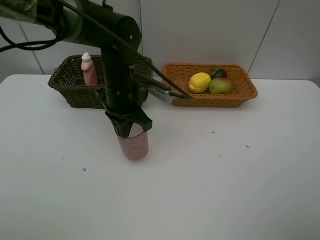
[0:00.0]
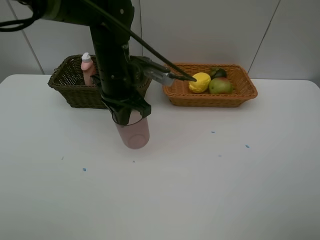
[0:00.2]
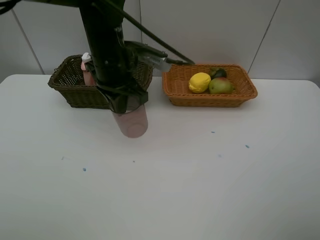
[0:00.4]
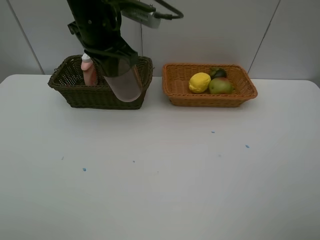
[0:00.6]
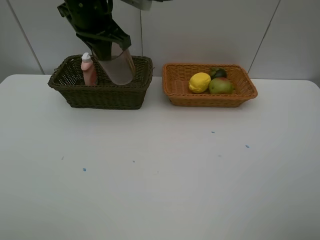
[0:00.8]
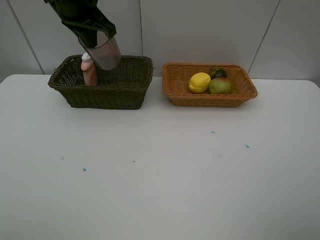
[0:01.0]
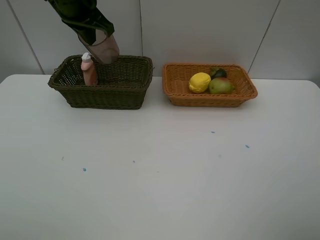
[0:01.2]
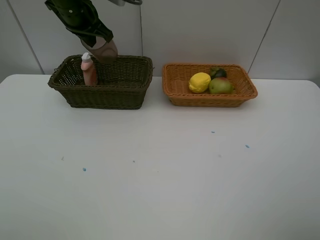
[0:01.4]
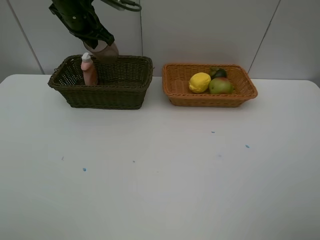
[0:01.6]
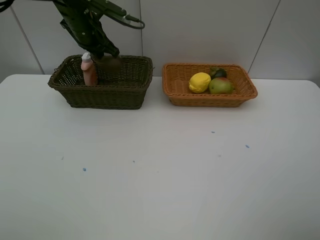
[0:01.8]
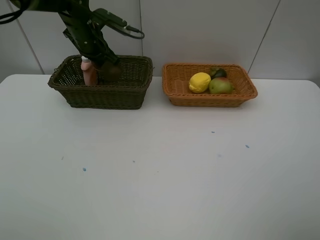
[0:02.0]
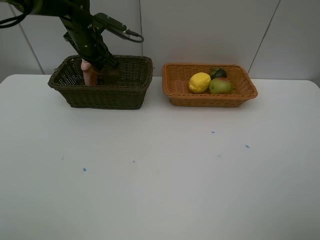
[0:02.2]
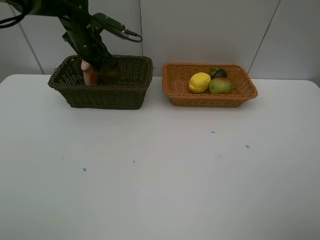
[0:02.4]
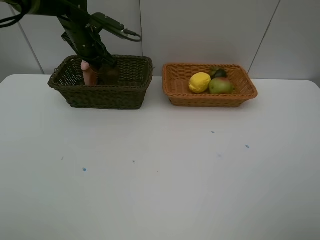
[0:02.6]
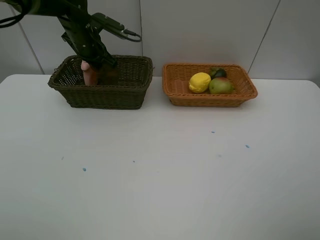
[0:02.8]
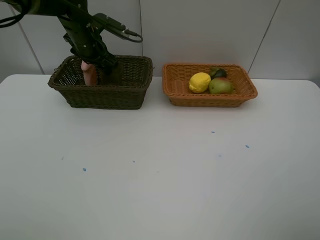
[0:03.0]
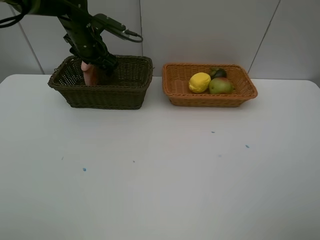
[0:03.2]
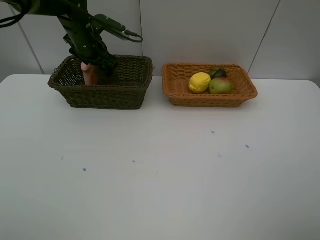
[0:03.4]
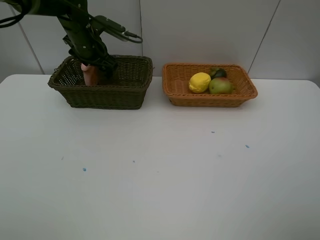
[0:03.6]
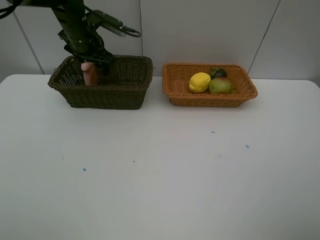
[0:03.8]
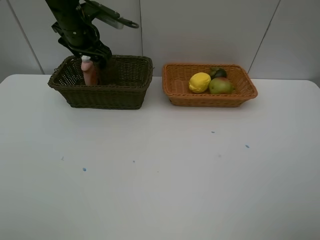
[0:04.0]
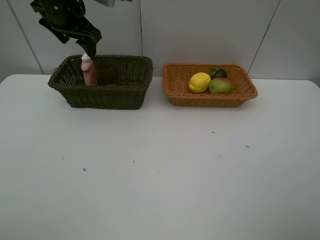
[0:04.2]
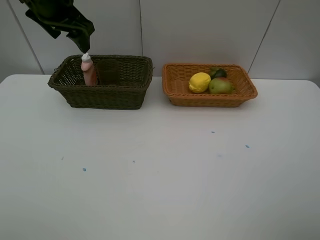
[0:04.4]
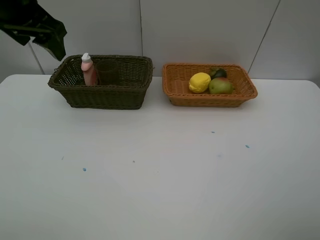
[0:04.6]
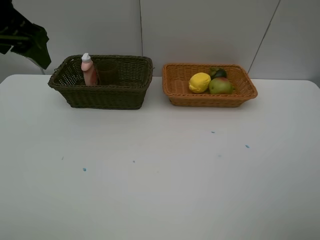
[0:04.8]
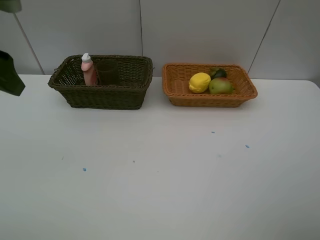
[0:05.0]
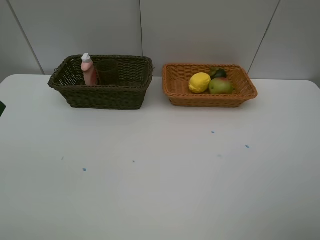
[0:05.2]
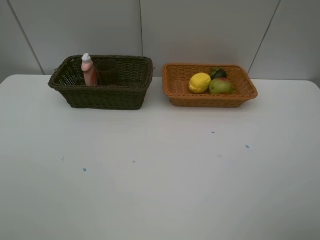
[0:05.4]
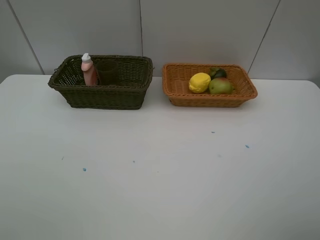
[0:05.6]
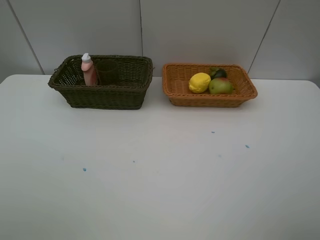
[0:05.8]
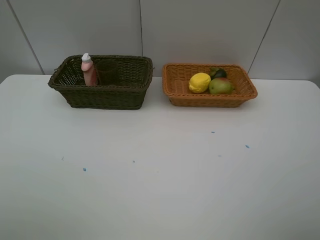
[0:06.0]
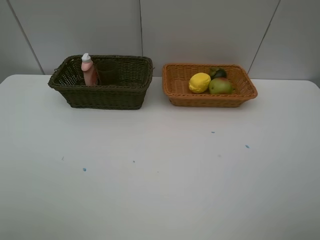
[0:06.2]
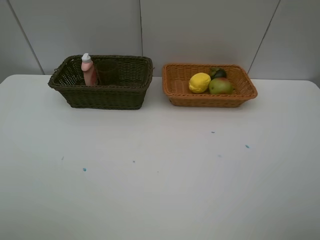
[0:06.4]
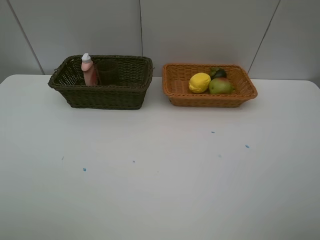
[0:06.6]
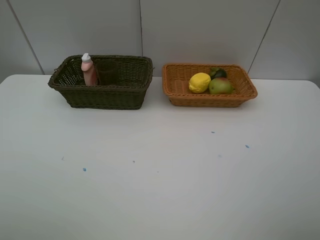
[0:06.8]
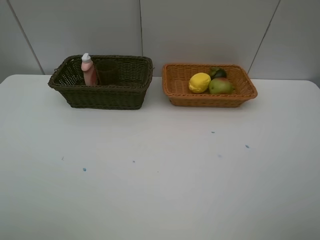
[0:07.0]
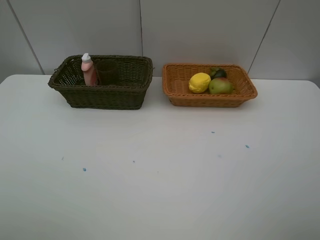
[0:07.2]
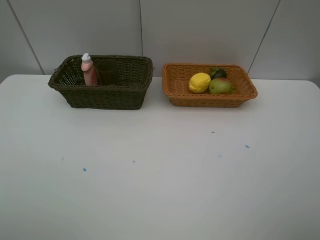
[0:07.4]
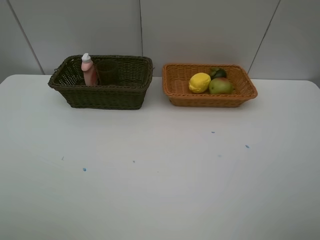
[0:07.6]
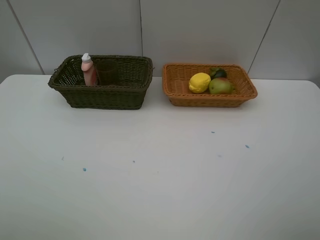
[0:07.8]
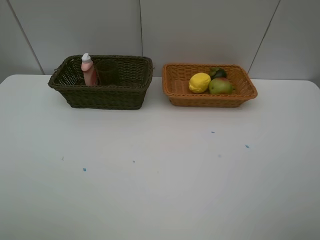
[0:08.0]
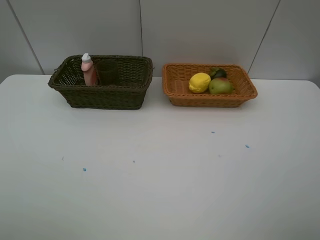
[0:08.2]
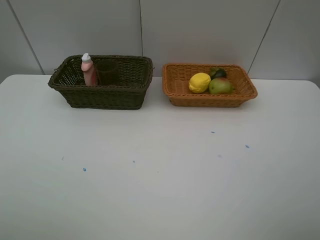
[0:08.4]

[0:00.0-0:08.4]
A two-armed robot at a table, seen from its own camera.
Task of the whole recording: Place multiple objects separately in different baskets.
0:00.0 to 0:01.4: The left gripper heads forward, upward and to the left, covering about 20 cm.
0:01.4 to 0:02.8: The left gripper shifts roughly 10 cm downward.
0:02.8 to 0:04.2: The left gripper shifts some 10 cm upward and backward, and opens.
0:04.2 to 0:05.6: The left gripper shifts some 35 cm backward.
0:07.0 to 0:08.4: The two grippers keep their place.

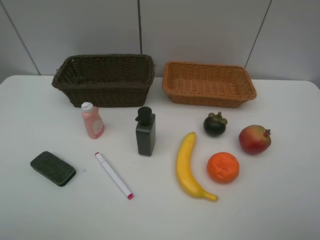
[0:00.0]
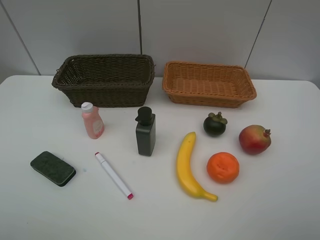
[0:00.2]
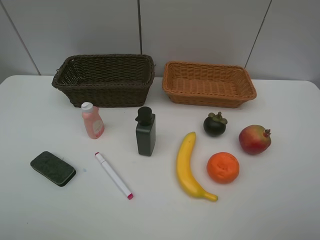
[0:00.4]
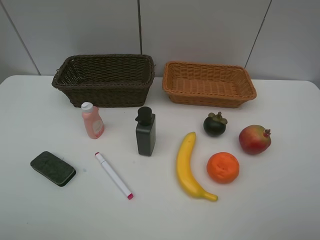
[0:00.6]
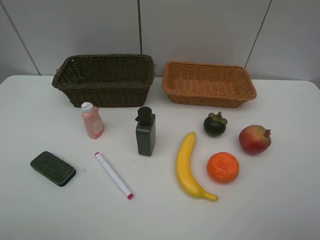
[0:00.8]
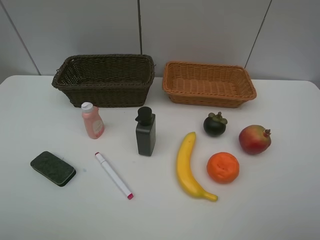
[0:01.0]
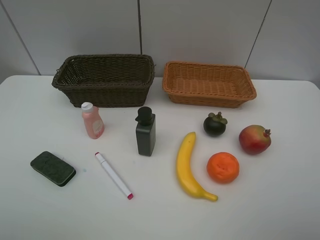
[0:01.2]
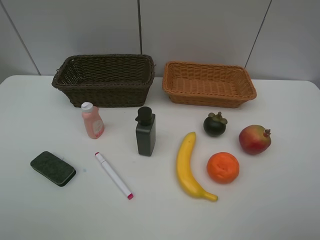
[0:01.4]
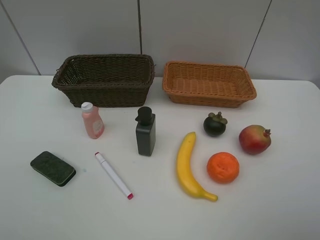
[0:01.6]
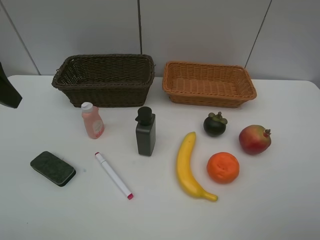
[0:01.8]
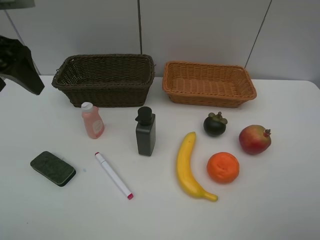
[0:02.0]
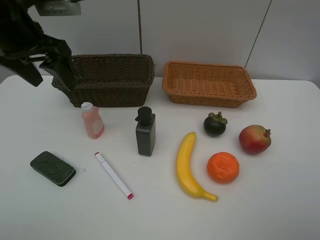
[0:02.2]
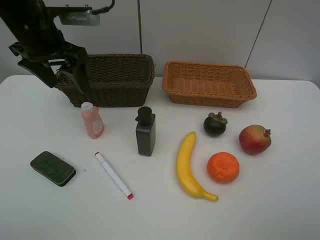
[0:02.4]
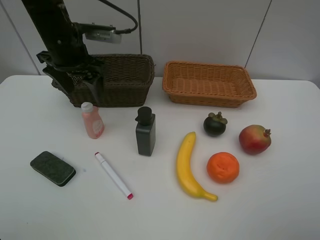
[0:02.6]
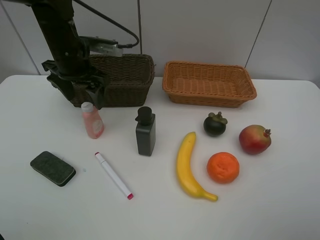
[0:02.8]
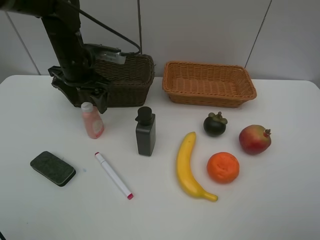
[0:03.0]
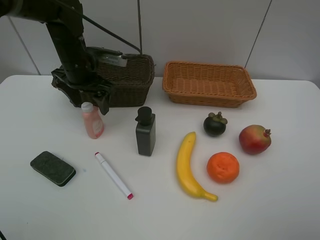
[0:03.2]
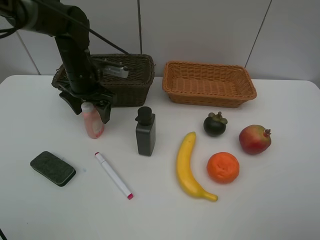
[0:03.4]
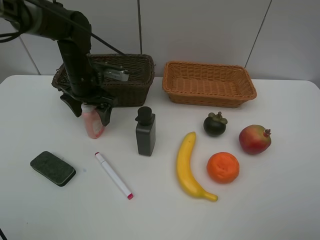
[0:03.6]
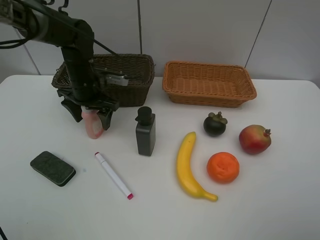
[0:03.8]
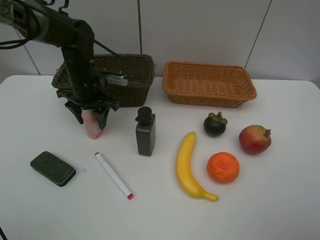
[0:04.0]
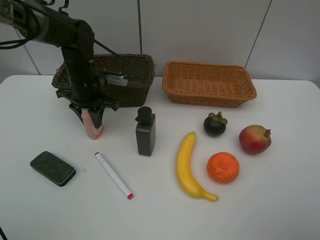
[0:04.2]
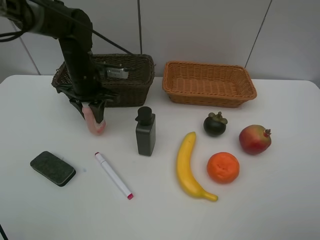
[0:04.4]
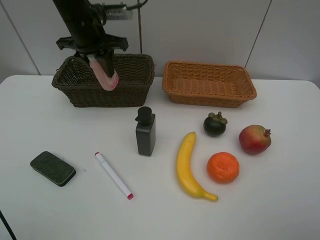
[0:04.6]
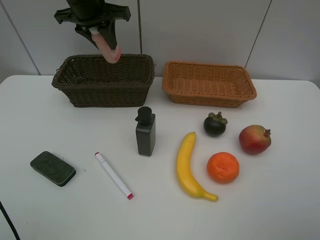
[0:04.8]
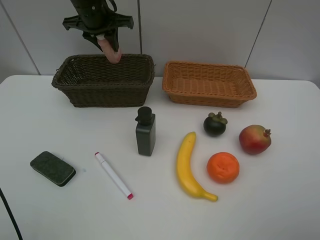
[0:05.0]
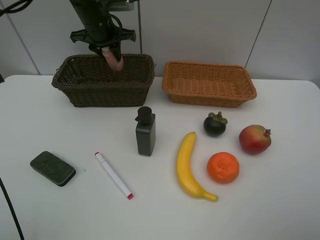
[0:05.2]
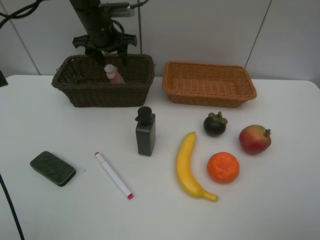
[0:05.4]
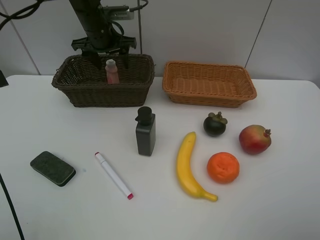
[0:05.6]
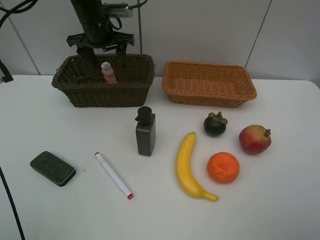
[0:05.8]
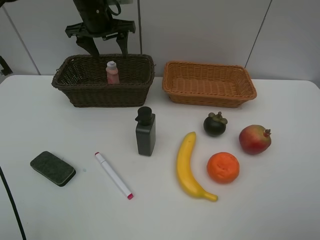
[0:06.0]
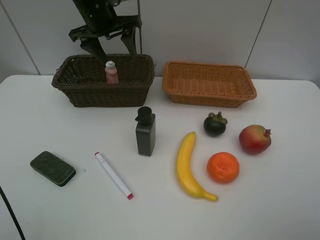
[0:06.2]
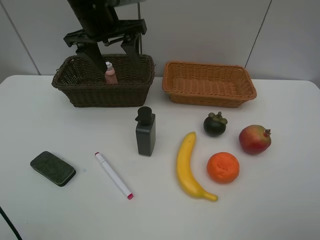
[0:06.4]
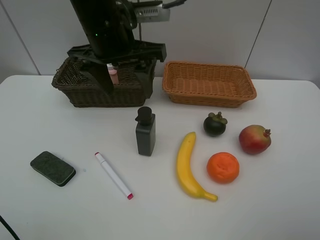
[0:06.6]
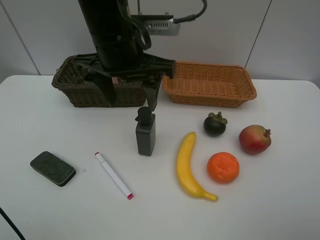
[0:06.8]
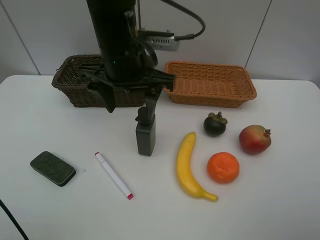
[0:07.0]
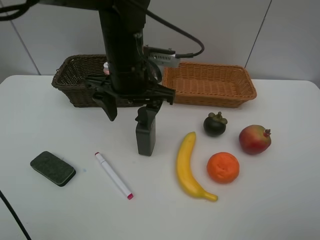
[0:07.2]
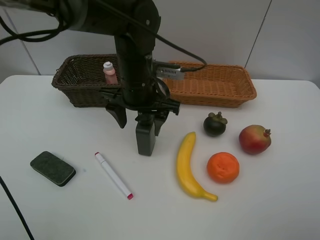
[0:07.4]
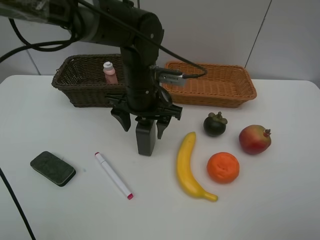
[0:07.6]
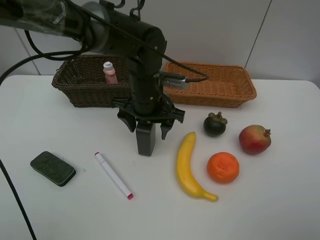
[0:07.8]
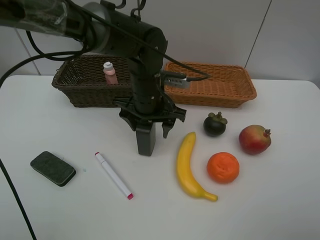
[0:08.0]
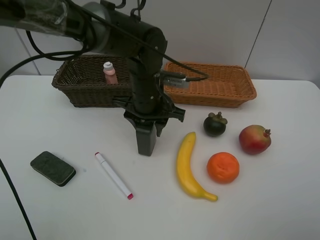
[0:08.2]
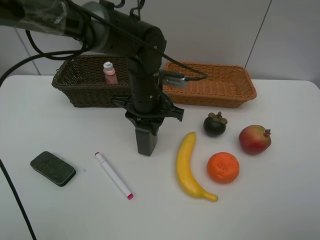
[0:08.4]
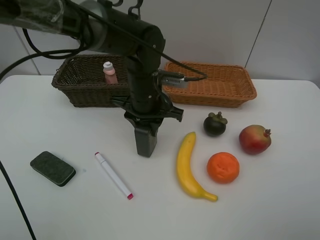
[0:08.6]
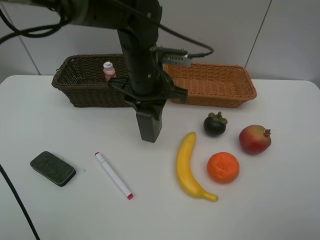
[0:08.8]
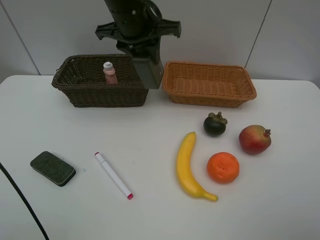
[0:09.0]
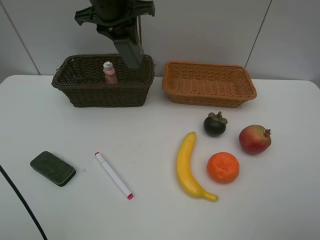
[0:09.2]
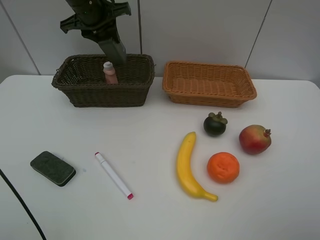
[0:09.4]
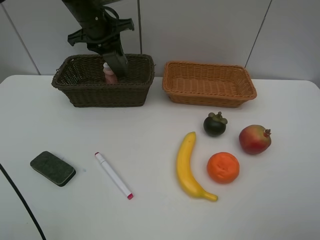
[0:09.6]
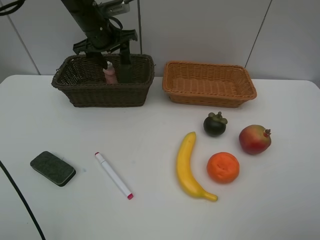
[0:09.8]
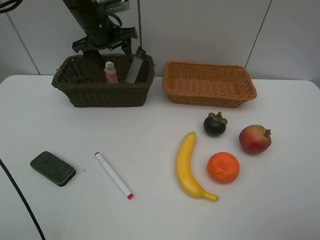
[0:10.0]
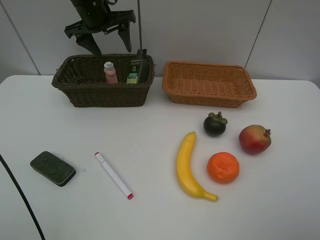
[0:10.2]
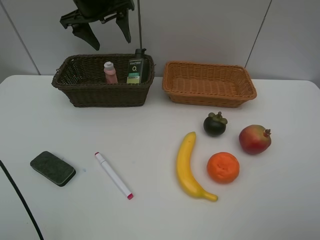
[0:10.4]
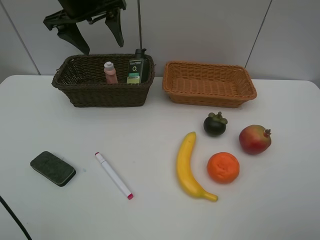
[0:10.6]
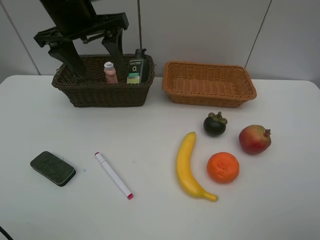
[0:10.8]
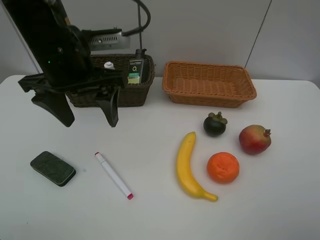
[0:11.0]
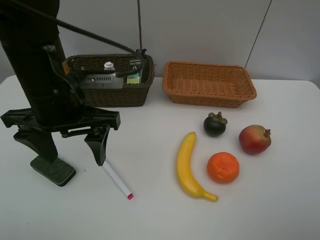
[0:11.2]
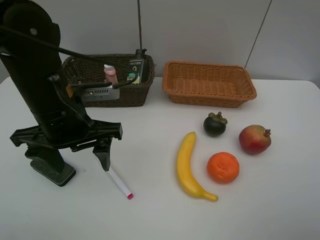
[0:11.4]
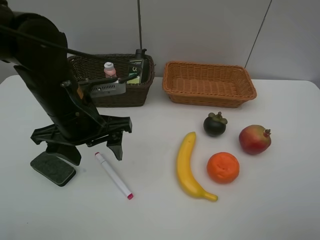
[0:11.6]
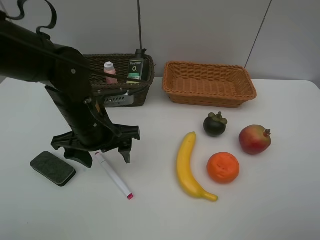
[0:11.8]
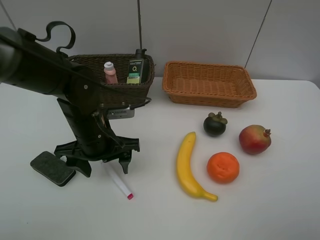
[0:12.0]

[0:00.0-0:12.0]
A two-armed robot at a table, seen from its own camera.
Task of the whole recording: Place multiple objects separately in different baskets.
Step, 0:00.0 to 0:04.4: Pick up the laundry detergent with left gripper.
Step, 0:04.6 to 0:05.8: Place the laundry detergent in the dark basket with left gripper.
Step, 0:06.0 to 0:08.8: Pick up the hard facial cleanser with left gripper.
Step, 0:09.0 to 0:10.0: Place the hard facial cleanser in the dark basket with left gripper.
0:01.6 to 0:03.0: The left gripper is displaced forward, downward and to the right by roughly 30 cm.
0:03.0 to 0:04.4: The left gripper closes.
0:04.4 to 0:06.0: The left gripper goes up and down, about 15 cm each way, reversing 2 times, and opens.
0:06.0 to 0:07.6: The left gripper is displaced backward, to the right and downward by approximately 20 cm.
0:07.6 to 0:09.0: The left gripper moves upward and forward, approximately 15 cm, and closes.
0:09.0 to 0:10.4: The left gripper heads to the left and forward, covering some 10 cm, and opens.
0:10.4 to 0:12.0: The left gripper travels backward and downward by roughly 30 cm.

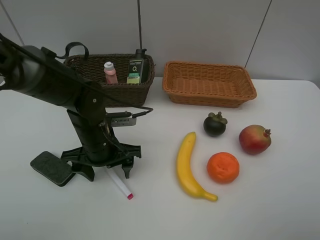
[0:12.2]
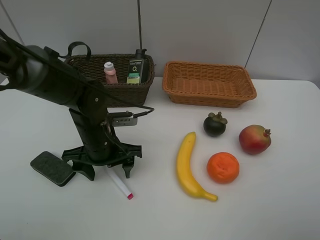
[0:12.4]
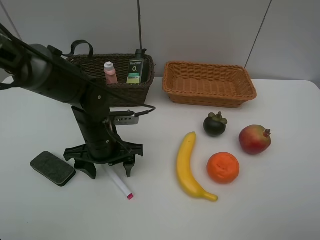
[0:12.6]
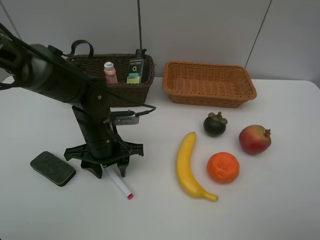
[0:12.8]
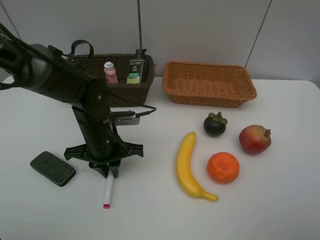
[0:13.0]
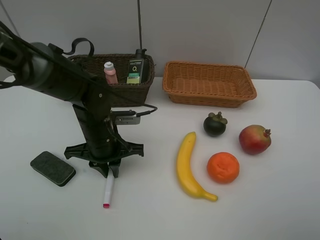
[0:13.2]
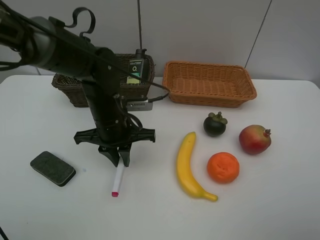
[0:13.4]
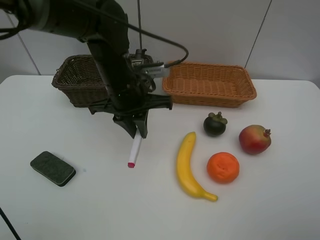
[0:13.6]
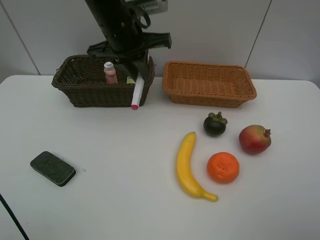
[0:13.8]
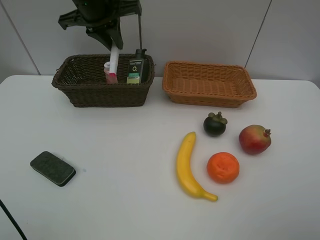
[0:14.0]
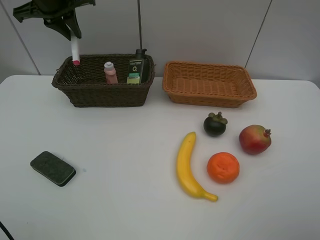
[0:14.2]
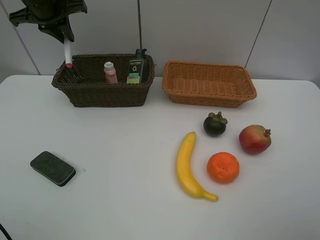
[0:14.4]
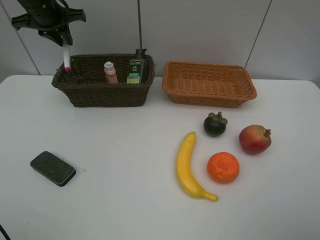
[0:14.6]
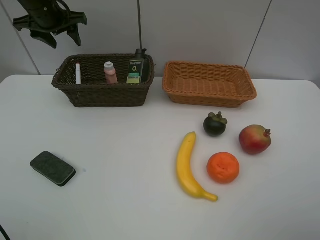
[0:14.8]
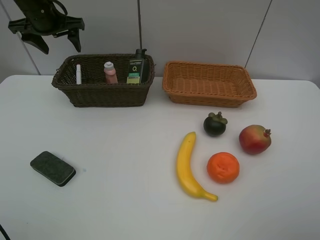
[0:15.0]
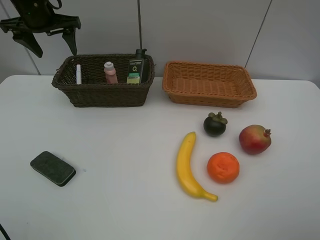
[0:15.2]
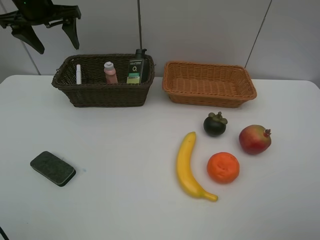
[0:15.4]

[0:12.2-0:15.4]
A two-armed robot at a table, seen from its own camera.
Task of the whole recording: Place multiple objects separately in different baskets.
Step, 0:13.4 to 0:15.0: Place the red marker in the dark basket with left gripper.
0:12.2 to 0:13.8: The left gripper moves upward and forward, some 25 cm, and closes.
0:13.8 to 0:15.4: The left gripper goes roughly 20 cm to the left and forward, and opens.
